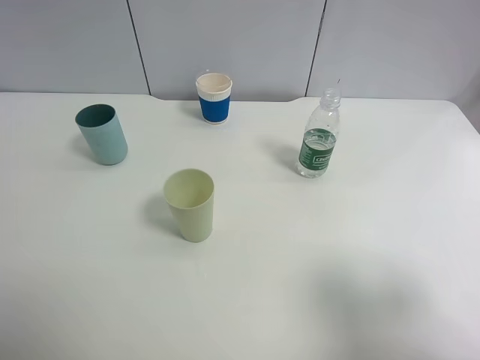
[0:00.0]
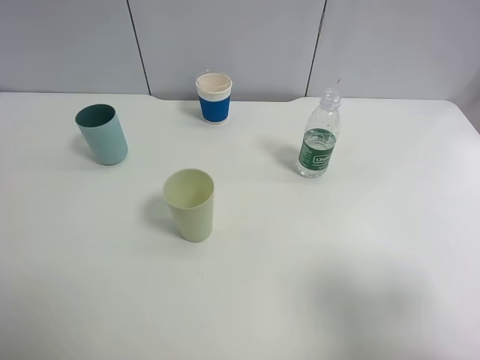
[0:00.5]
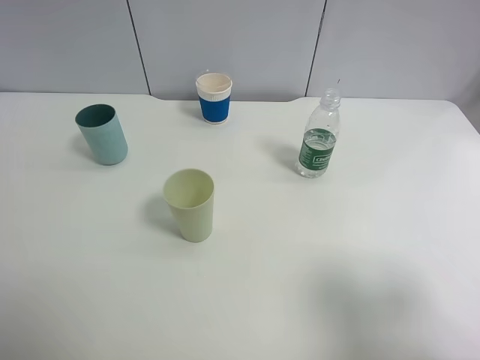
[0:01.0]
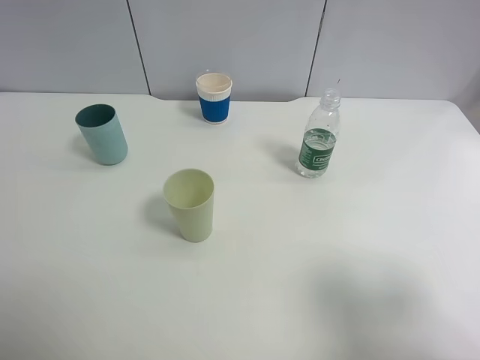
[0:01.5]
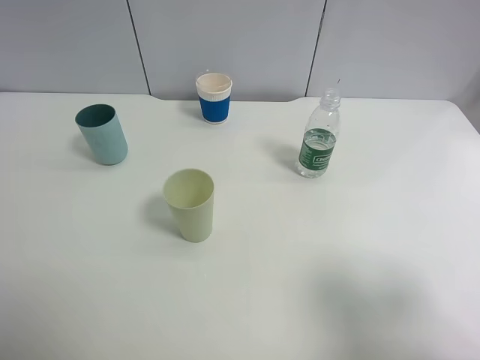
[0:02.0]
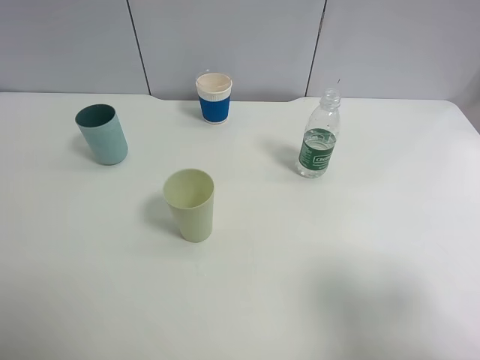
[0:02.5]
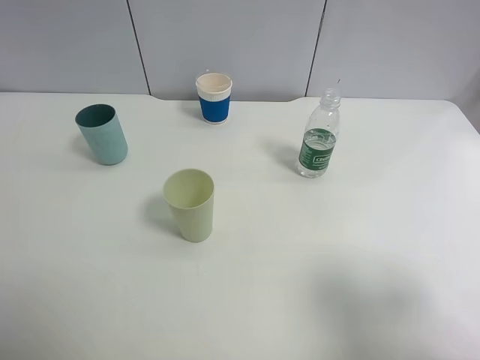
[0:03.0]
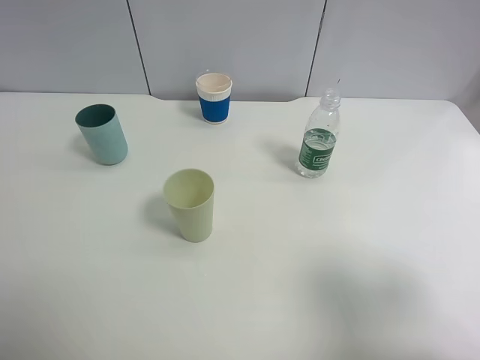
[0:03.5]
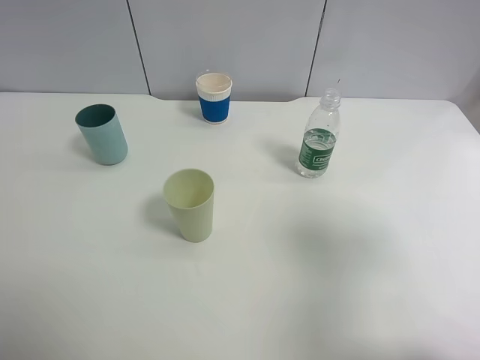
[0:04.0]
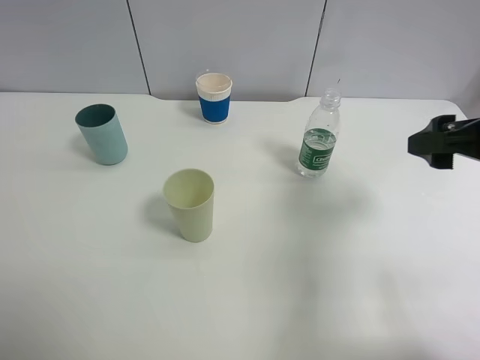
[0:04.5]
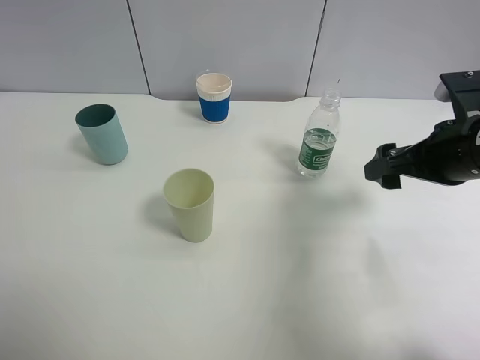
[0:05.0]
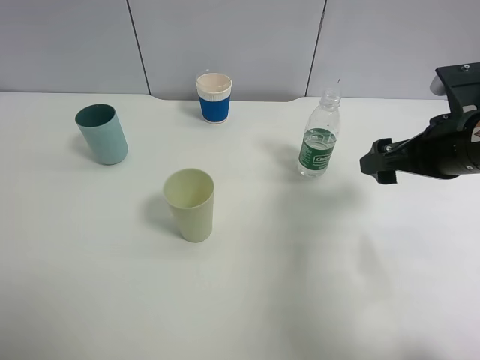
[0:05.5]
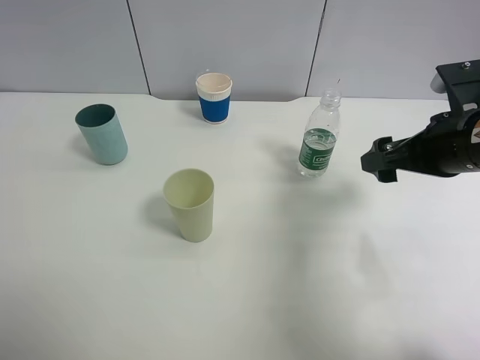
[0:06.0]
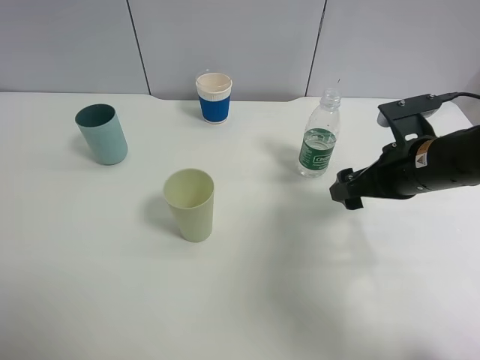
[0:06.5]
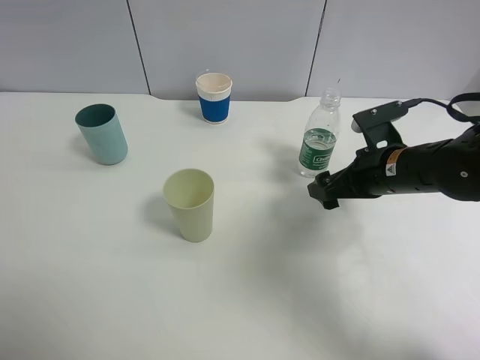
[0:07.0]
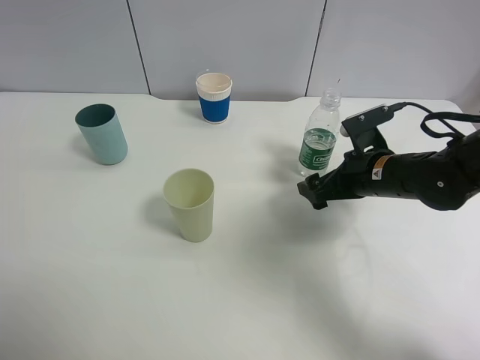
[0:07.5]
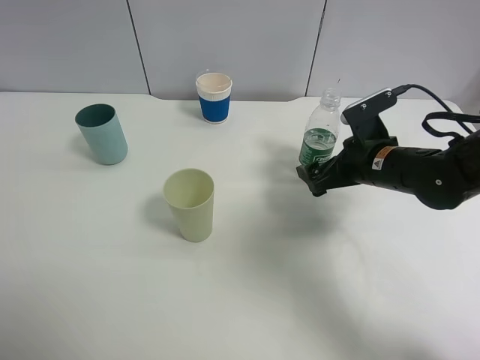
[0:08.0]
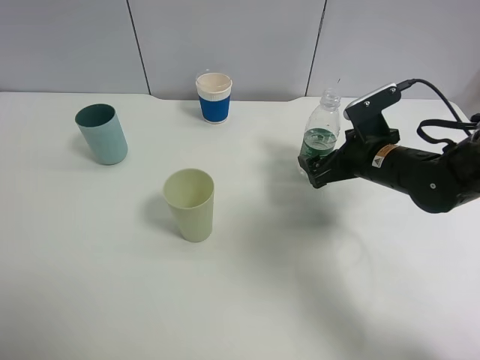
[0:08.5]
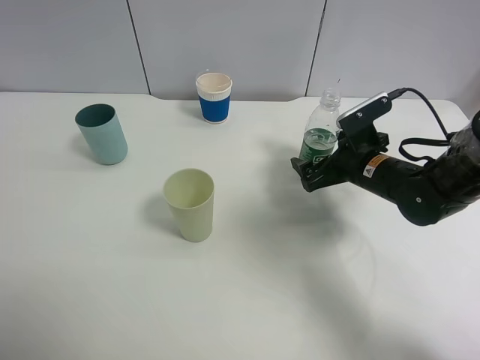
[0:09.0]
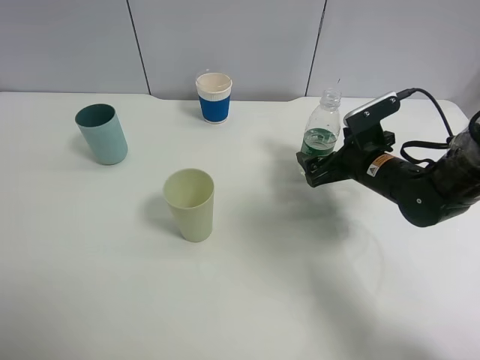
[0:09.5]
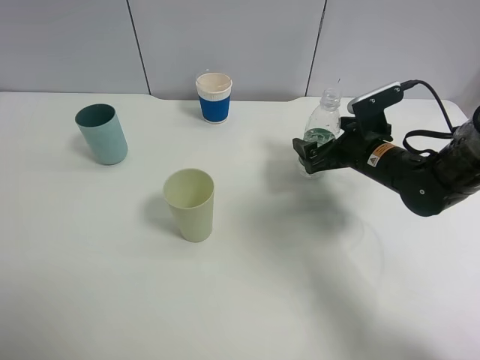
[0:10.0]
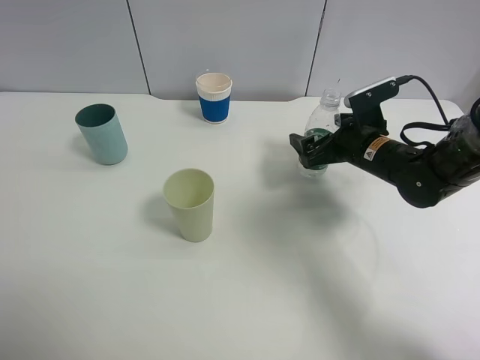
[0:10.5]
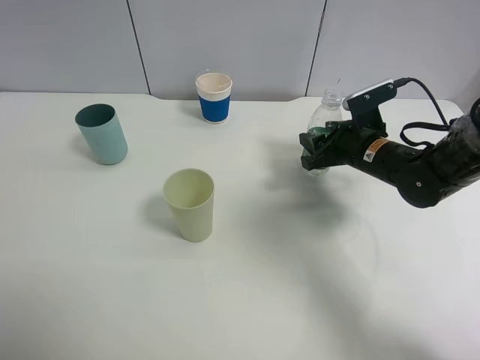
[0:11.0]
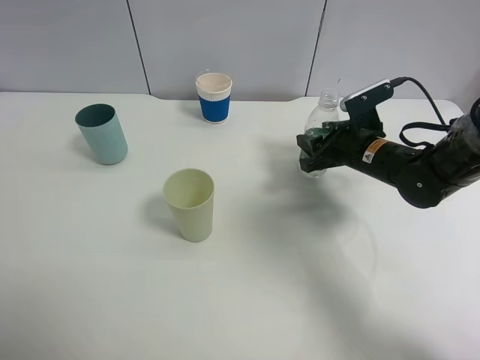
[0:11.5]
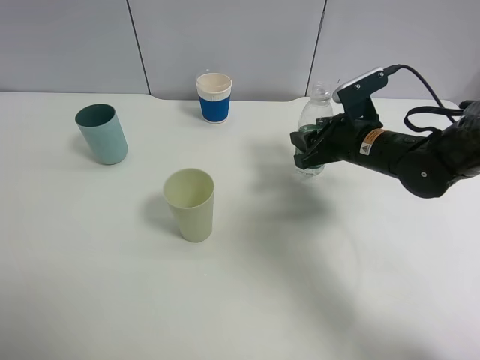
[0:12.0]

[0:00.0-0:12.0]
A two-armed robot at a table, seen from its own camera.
Task of the whole recording: use a clamp to hold the bottle of the drink, pour the beverage into a random cup, then clamp the cup containing the drink and pour the drink into another random cup.
0:00.0 to 0:02.0: Neither gripper changes place.
0:02.0 to 0:04.0: The right gripper shifts some 10 cm forward.
0:04.0 to 0:06.0: The right gripper shifts some 15 cm forward and downward.
0:06.0 to 0:08.0: The right gripper is displaced downward and forward by some 10 cm.
0:08.0 to 0:10.0: The grippers make only small movements.
0:10.0 to 0:12.0: The right gripper closes its fingers.

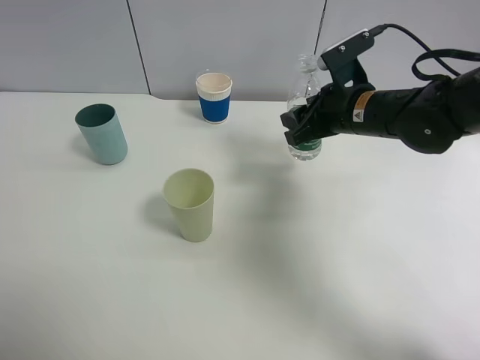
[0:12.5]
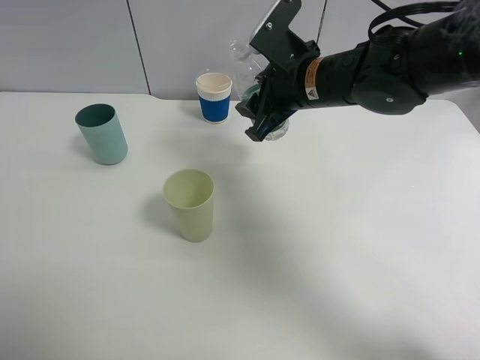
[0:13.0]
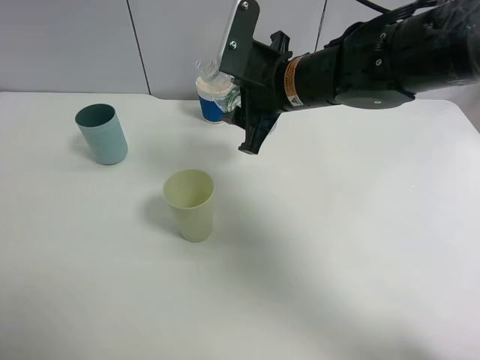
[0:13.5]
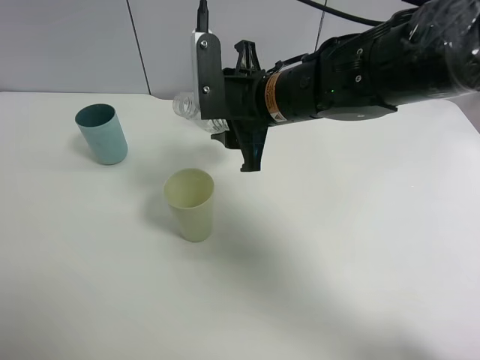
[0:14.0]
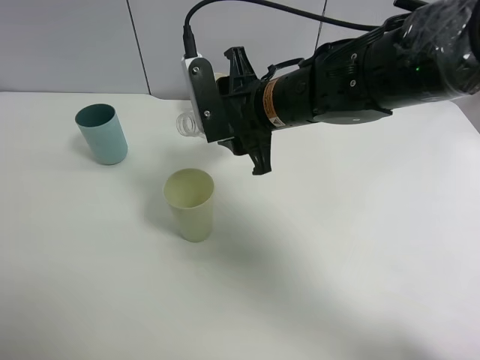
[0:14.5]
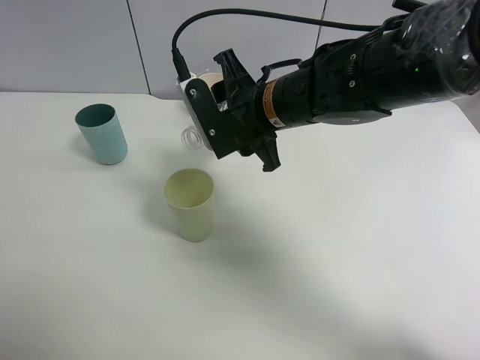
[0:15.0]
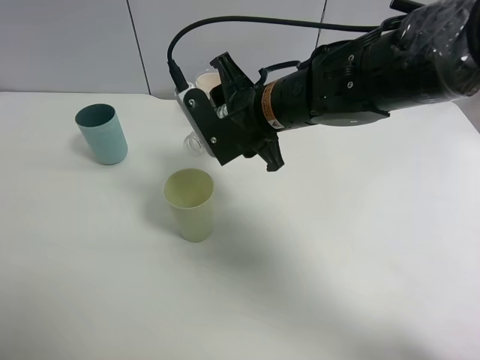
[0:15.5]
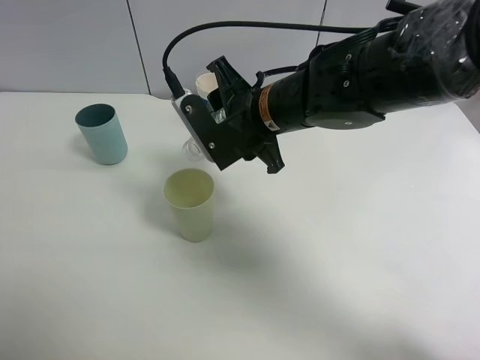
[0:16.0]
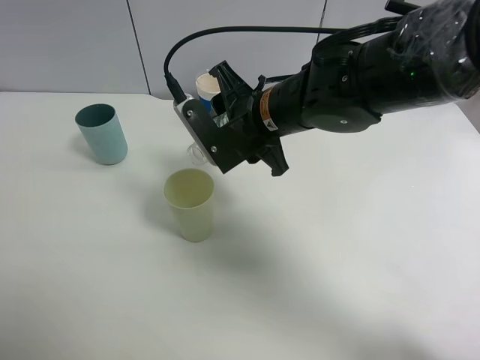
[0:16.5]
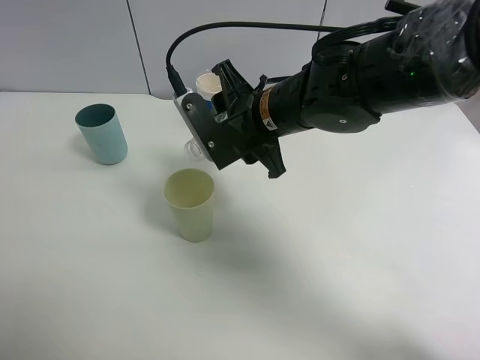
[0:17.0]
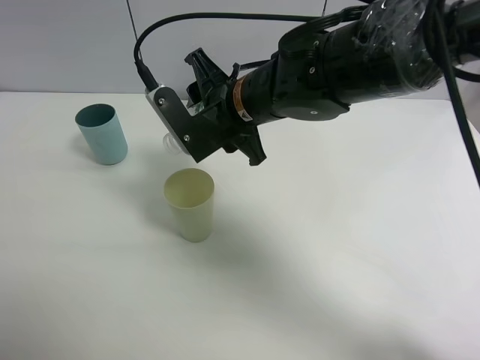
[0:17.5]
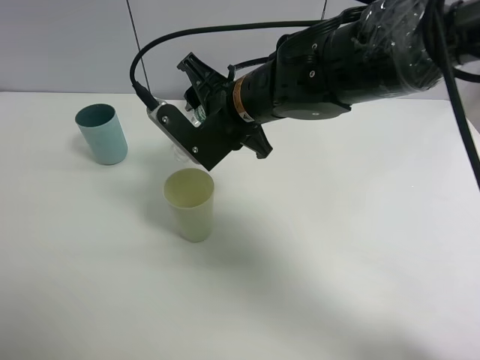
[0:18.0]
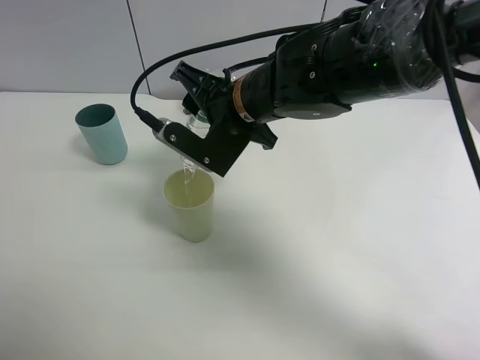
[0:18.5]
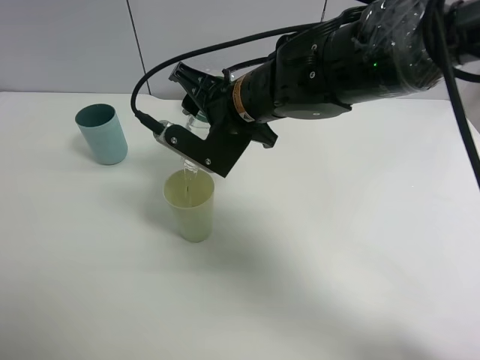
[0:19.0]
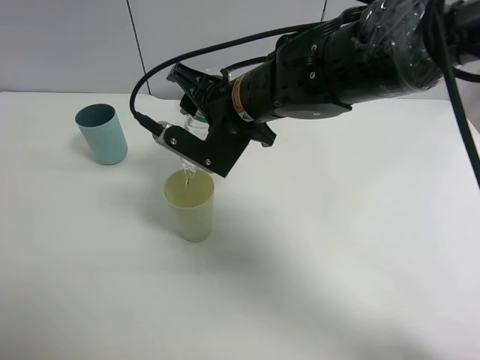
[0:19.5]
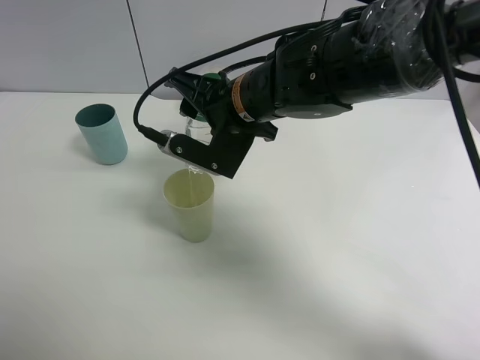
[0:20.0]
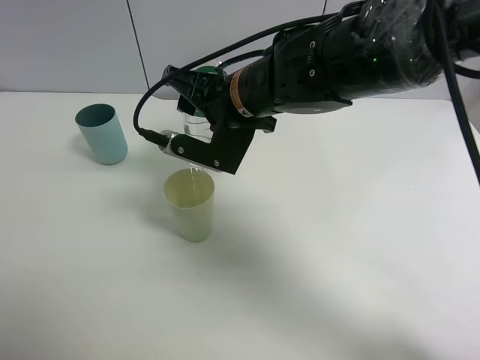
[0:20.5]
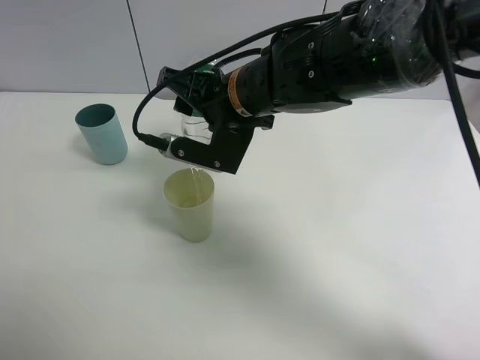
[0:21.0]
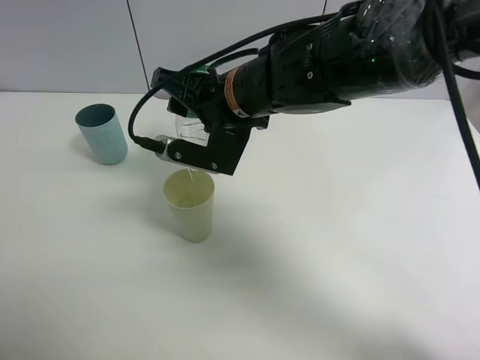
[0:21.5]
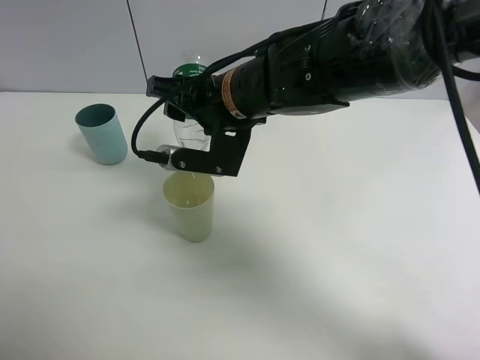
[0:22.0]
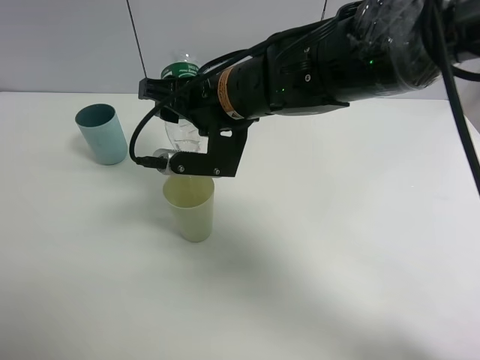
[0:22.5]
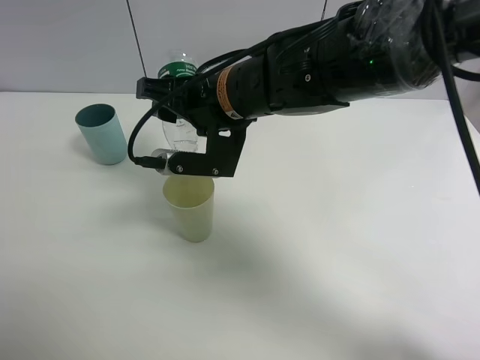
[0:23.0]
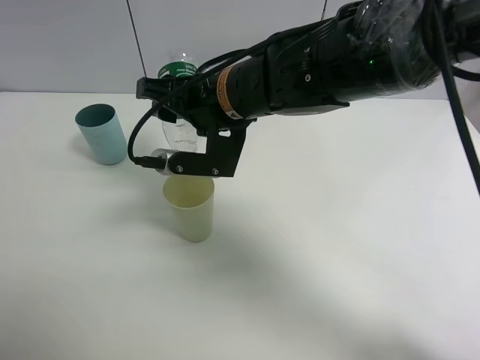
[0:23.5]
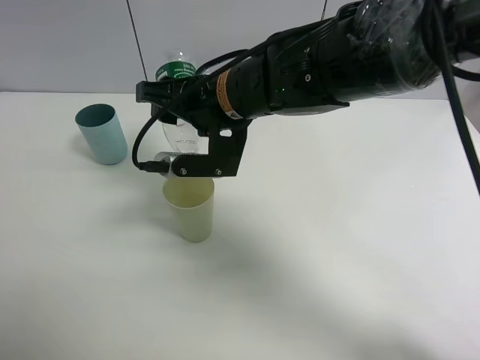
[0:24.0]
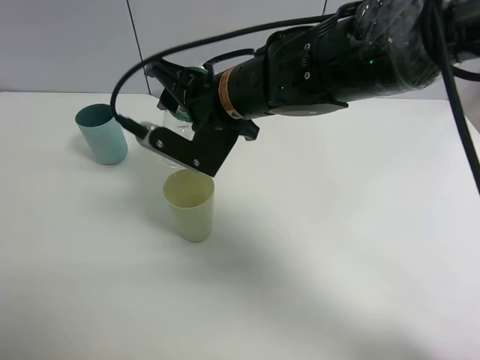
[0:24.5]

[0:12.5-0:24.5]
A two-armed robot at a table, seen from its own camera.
Task of the whole recording: use a clamp to hold the bottle of the drink, pour the beverage into a random cup, then clamp the cup containing the drink and pour the drink into another random cup.
Step, 0:12.5 to 0:24.5: Pour water into the green plastic cup with right gripper.
0:12.5 to 0:14.5: The right gripper is displaced to the left by roughly 10 cm.
0:14.5 to 0:16.5: The grippers stay close to where they were, moving slightly.
0:18.5 to 0:20.5: The grippers make only small movements.
0:20.5 to 0:22.5: The grippers move only a little.

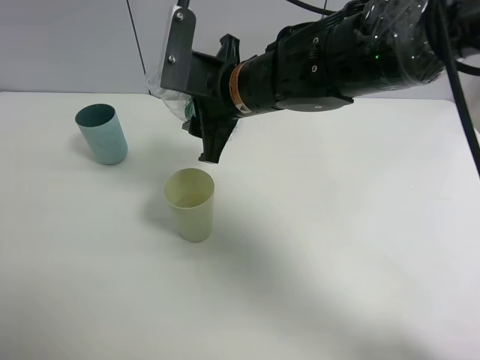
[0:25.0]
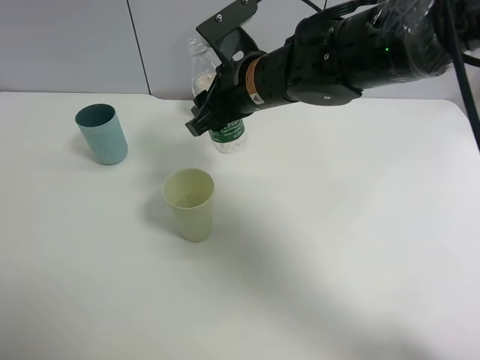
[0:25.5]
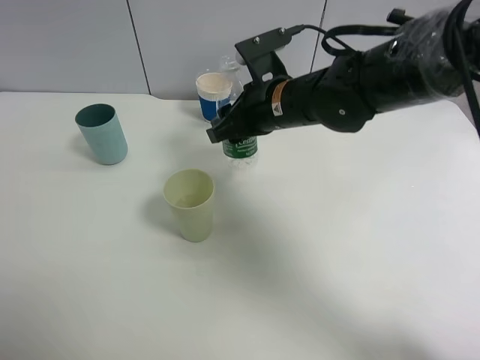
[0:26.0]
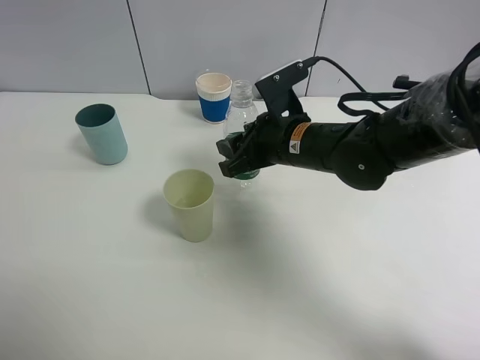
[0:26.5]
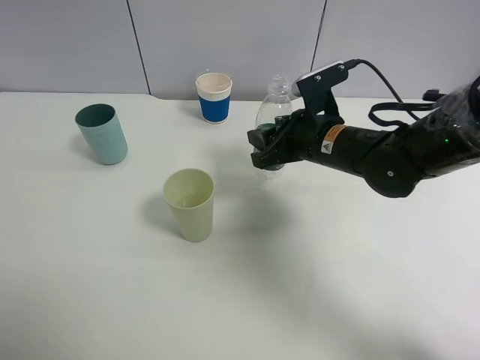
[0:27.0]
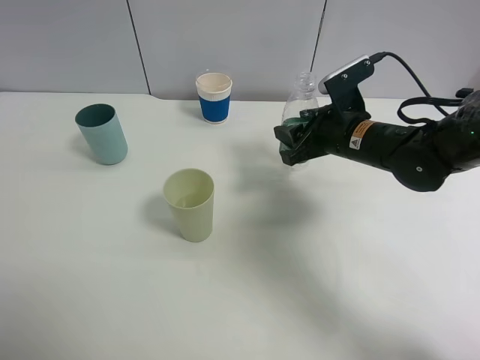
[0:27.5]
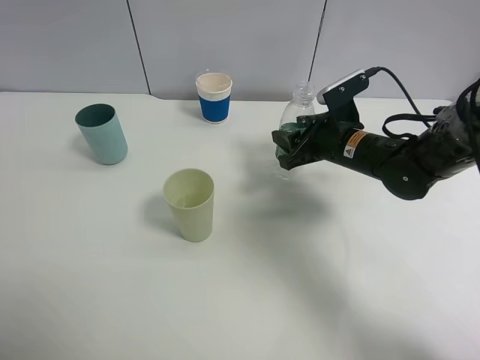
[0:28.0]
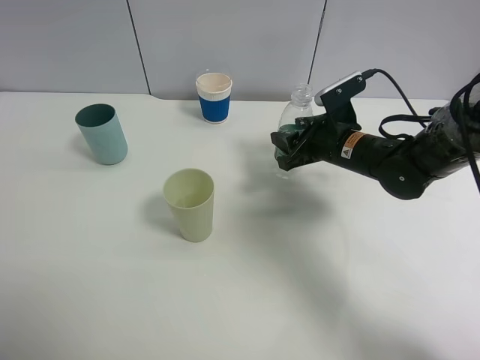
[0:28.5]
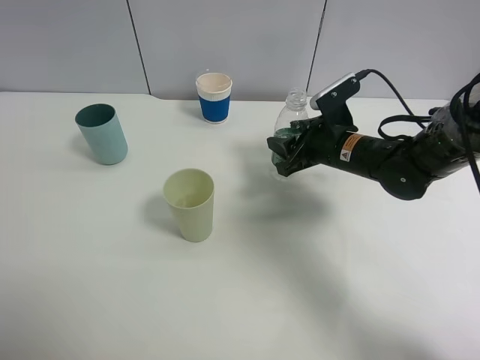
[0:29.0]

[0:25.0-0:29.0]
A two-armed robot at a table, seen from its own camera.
Task of the whole recording: use a clamp to hold the bottle of the drink, pour the beverage into a random cup, then clamp the cup containing the drink and pour the drink into another random cup.
0:25.0 to 0:27.0: The right gripper is displaced to the right and downward by about 15 cm.
0:27.0 to 0:29.0: The right gripper shifts by roughly 5 cm.
